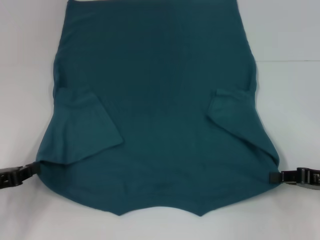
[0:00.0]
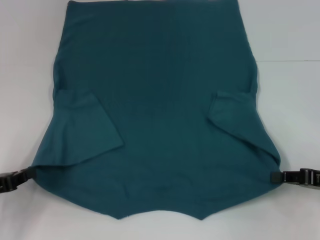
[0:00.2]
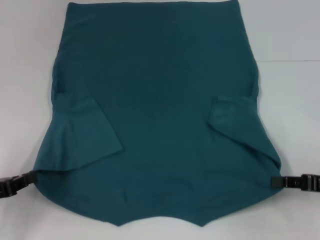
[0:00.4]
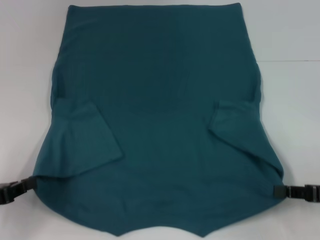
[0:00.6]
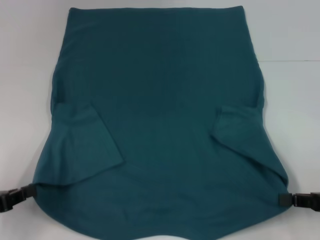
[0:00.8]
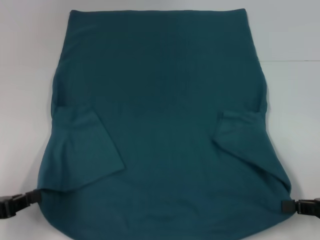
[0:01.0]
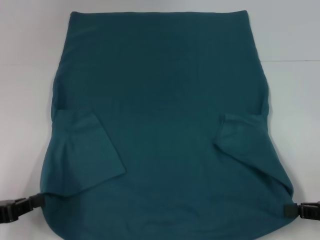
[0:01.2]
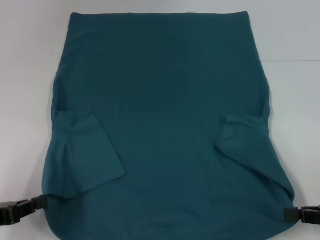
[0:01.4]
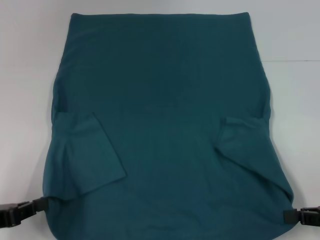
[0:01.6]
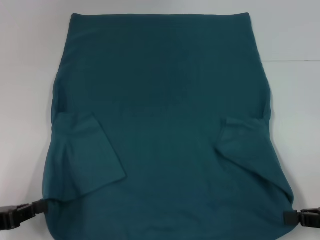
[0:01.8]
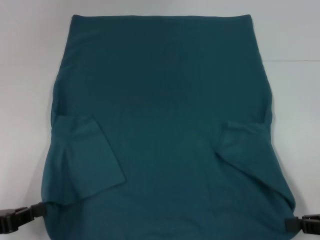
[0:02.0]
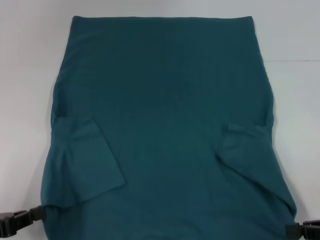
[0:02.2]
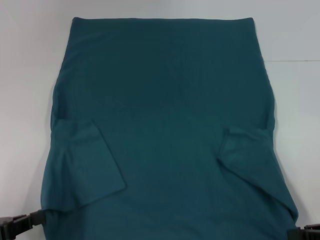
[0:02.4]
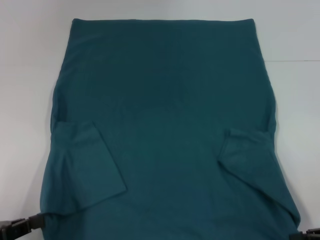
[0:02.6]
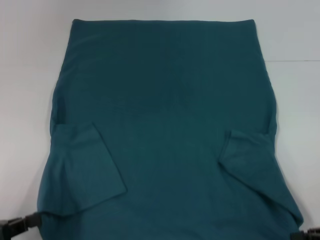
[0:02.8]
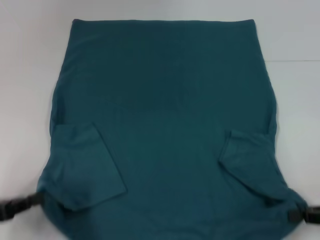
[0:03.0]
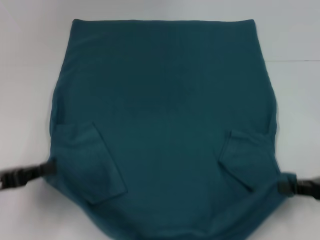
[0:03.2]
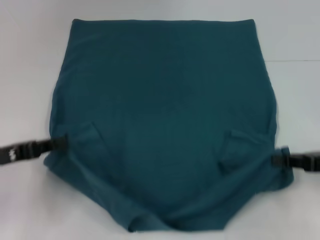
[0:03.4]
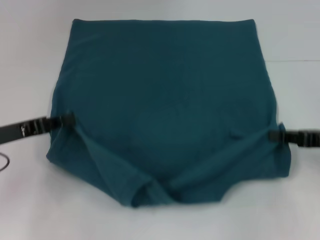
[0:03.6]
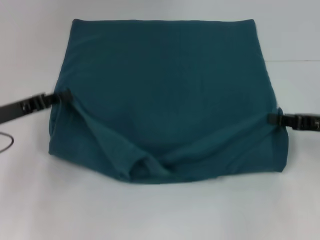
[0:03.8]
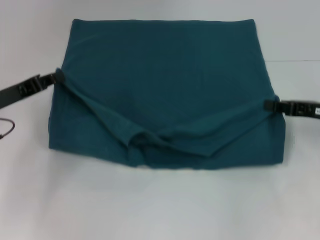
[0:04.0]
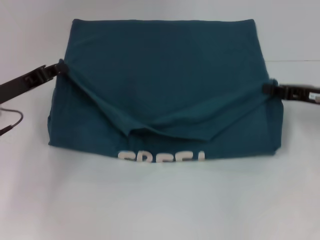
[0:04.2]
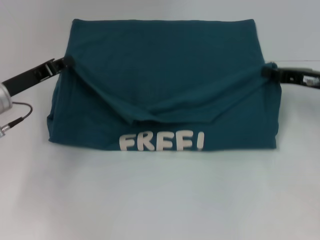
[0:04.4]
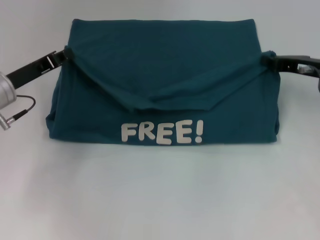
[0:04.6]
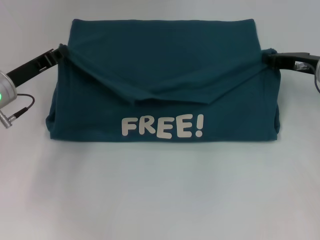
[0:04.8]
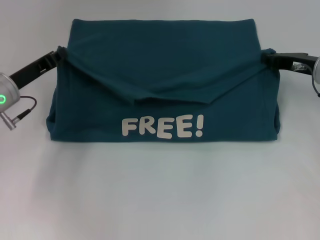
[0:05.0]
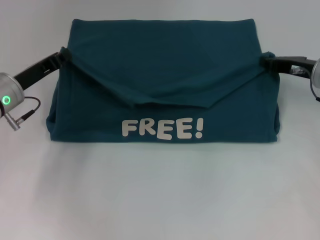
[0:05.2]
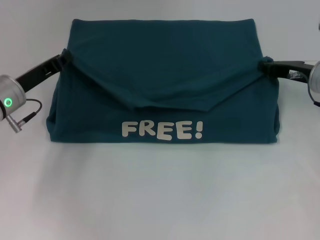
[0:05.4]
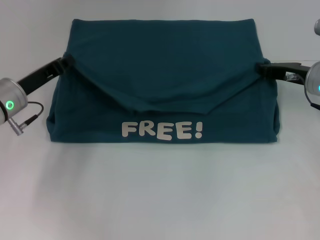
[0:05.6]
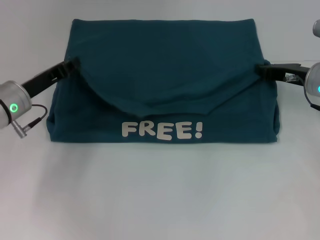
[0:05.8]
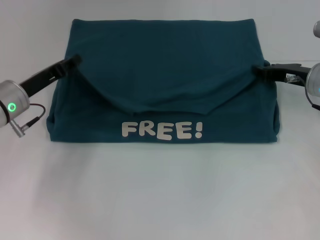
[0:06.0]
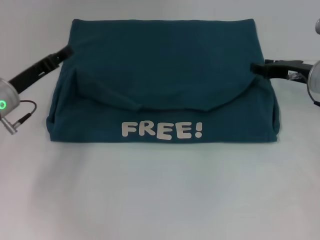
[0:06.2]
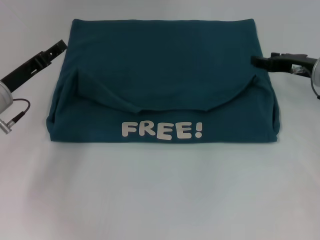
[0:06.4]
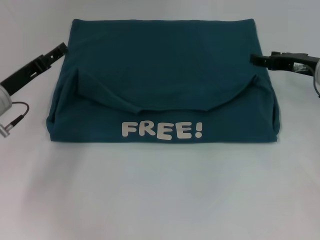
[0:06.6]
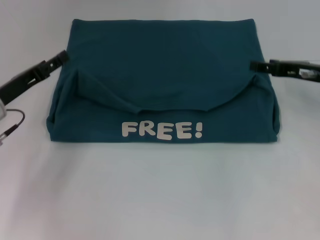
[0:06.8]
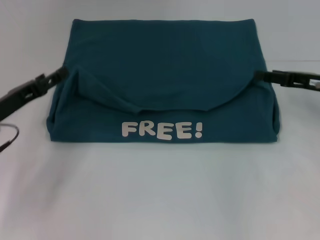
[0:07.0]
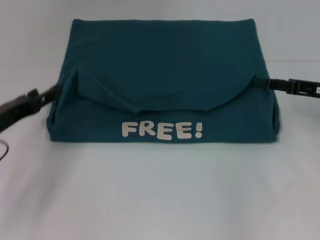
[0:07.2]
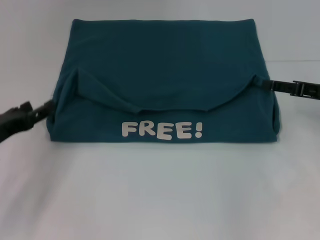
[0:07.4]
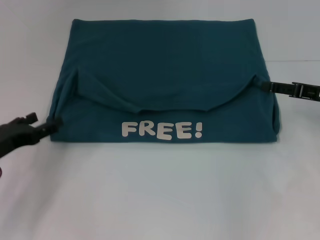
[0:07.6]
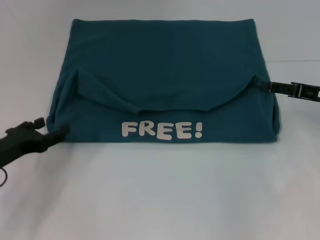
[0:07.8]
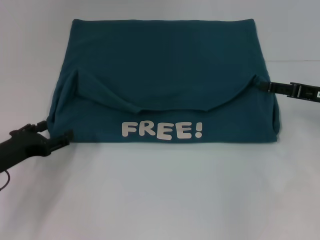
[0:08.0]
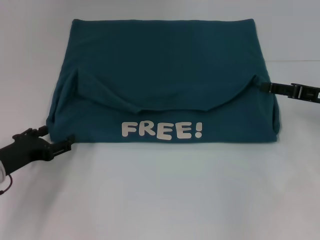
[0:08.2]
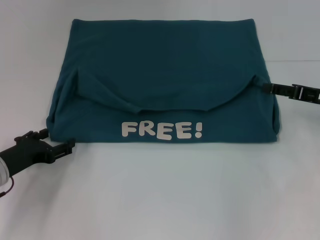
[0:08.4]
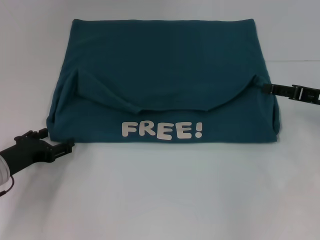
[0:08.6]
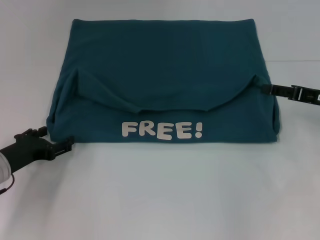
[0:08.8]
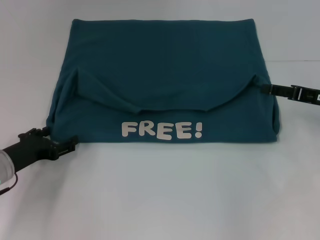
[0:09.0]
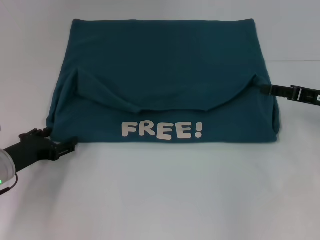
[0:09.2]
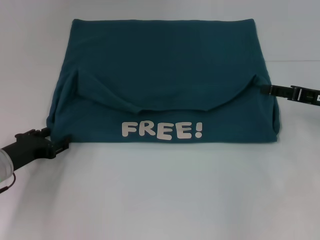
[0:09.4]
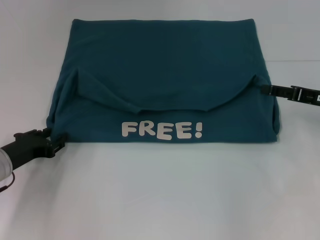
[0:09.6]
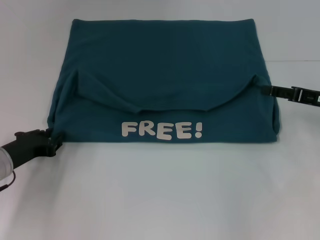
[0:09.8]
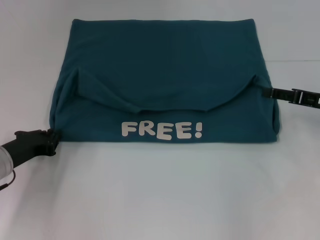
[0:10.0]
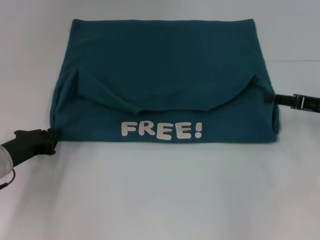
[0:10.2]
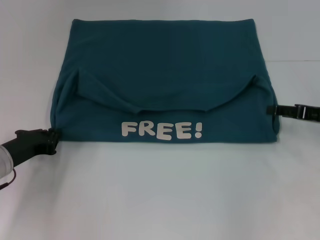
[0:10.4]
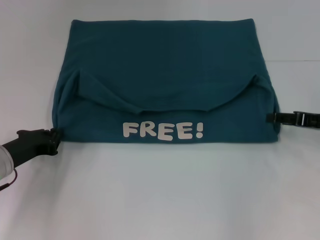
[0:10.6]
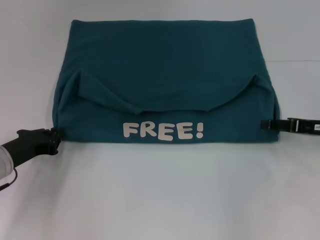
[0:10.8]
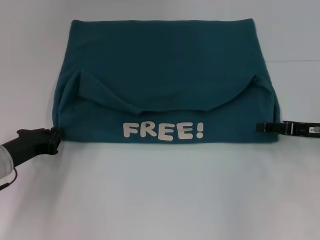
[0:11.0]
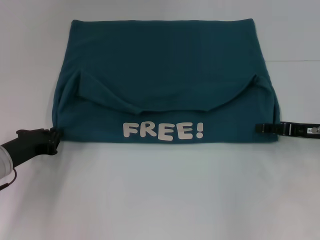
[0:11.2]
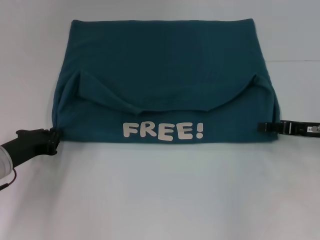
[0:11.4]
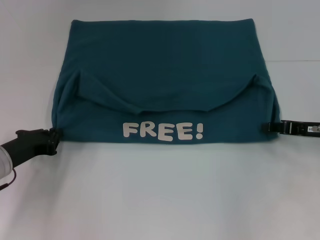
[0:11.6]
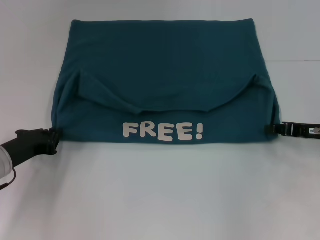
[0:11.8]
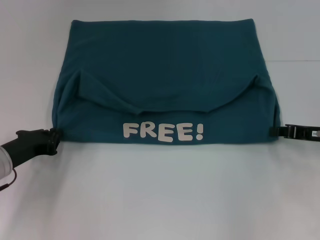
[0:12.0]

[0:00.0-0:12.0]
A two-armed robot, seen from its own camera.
Step, 0:00.0 to 0:06.2: Fold the clothes to the left.
Step, 0:00.0 to 0:06.2: Fold the clothes to the right.
0:00.0 to 0:01.6: The right gripper moves roughly 5 cm; the left gripper is displaced backward by some 5 cm.
0:01.6 to 0:03.0: The grippers make only small movements.
0:03.0 to 0:04.4: Both grippers travel together forward, roughly 15 cm.
0:04.4 to 0:06.0: The grippers move only a little.
0:06.0 to 0:07.6: The left gripper goes roughly 10 cm backward and to the left, and opens up, while the right gripper heads backward and to the right, covering roughly 5 cm, and opens up.
0:07.6 to 0:09.0: The grippers stay close to where they were, moving slightly.
0:09.0 to 0:10.4: The left gripper closes.
0:10.4 to 0:12.0: The right gripper closes up.

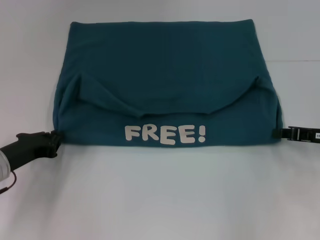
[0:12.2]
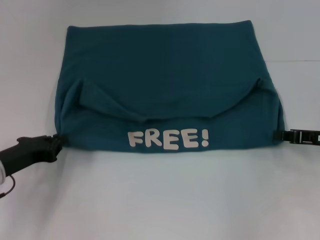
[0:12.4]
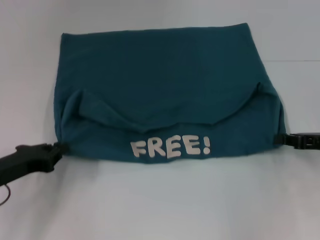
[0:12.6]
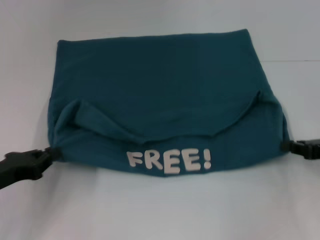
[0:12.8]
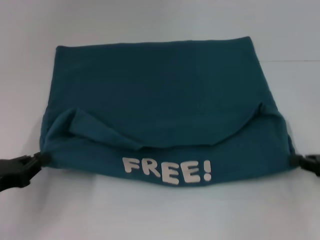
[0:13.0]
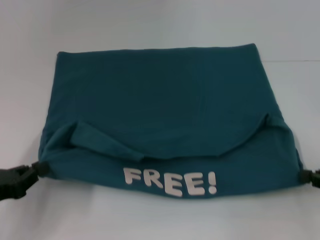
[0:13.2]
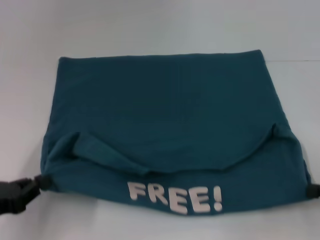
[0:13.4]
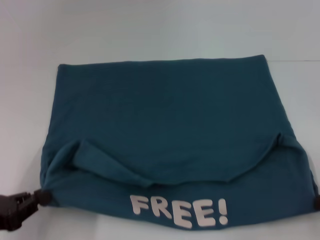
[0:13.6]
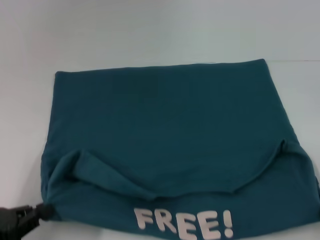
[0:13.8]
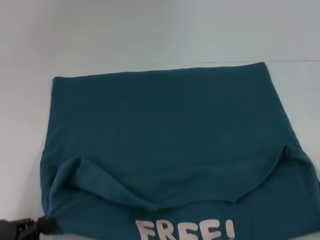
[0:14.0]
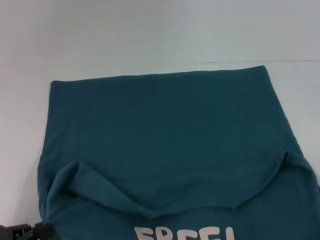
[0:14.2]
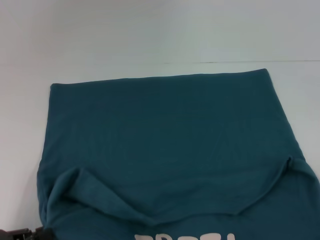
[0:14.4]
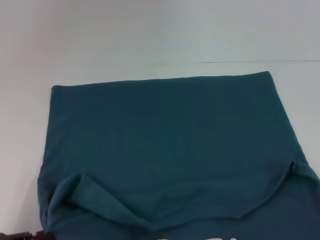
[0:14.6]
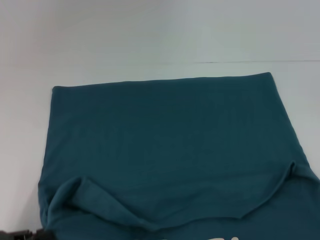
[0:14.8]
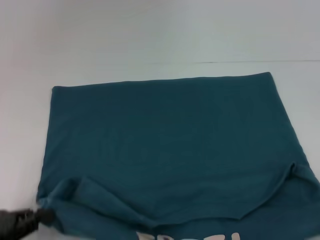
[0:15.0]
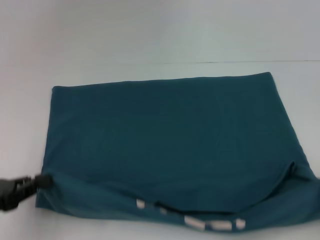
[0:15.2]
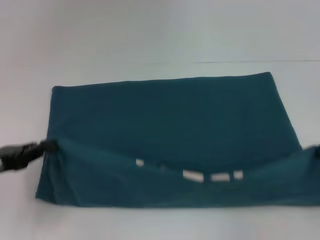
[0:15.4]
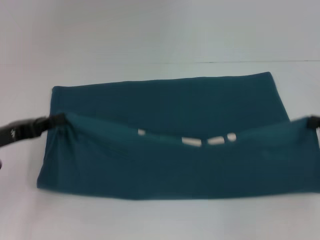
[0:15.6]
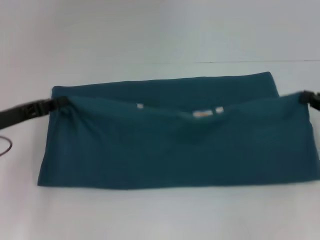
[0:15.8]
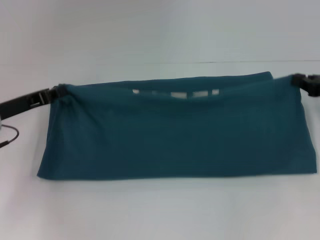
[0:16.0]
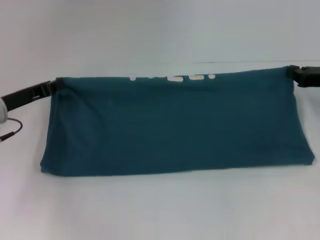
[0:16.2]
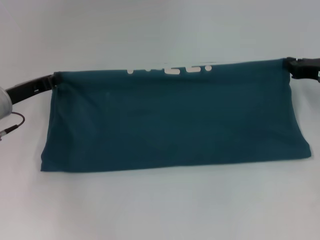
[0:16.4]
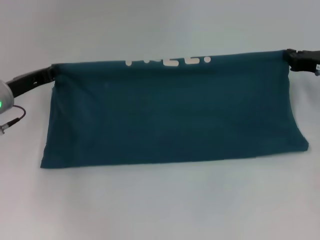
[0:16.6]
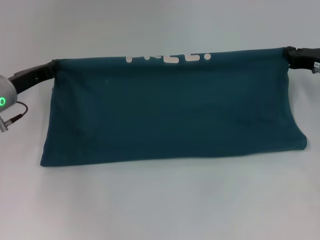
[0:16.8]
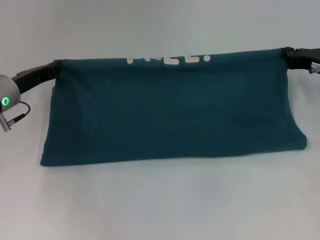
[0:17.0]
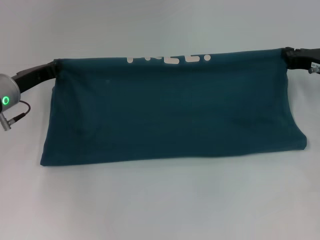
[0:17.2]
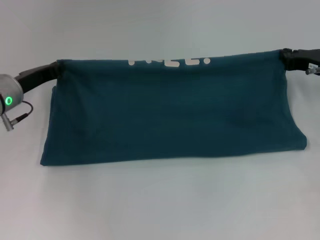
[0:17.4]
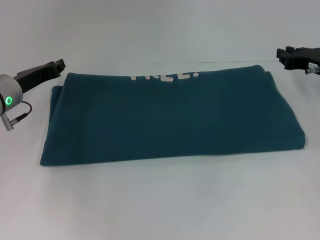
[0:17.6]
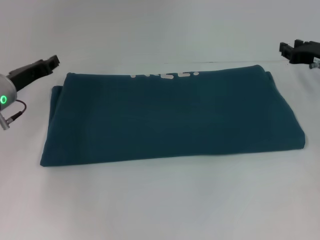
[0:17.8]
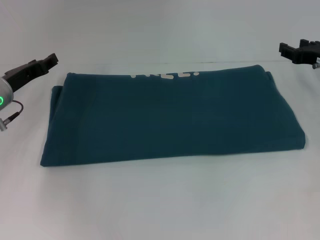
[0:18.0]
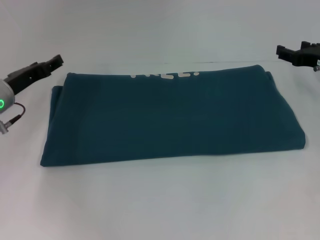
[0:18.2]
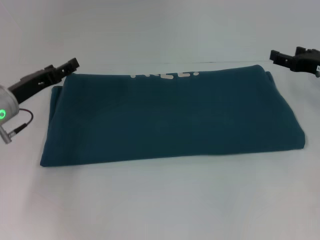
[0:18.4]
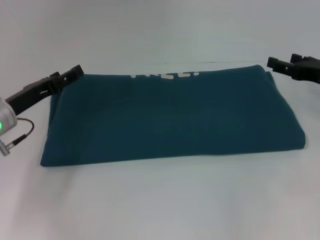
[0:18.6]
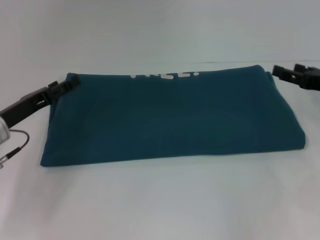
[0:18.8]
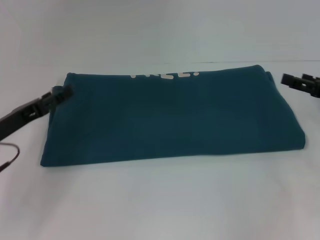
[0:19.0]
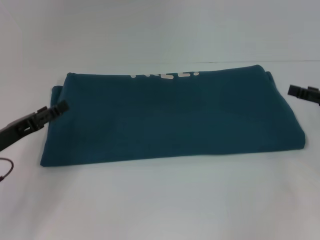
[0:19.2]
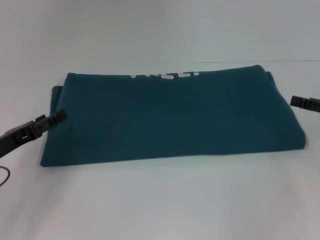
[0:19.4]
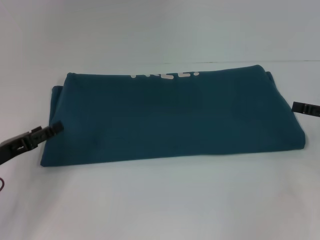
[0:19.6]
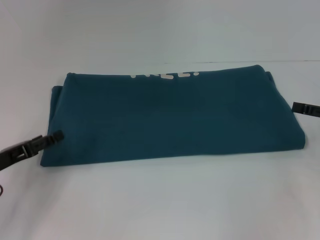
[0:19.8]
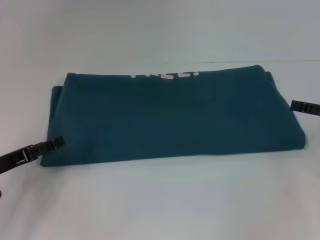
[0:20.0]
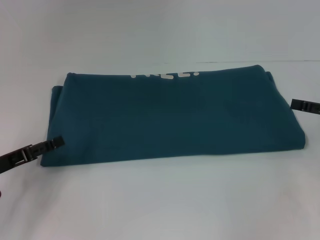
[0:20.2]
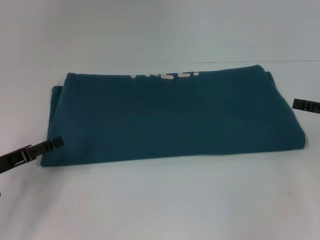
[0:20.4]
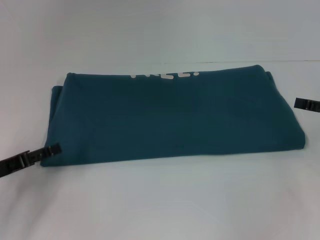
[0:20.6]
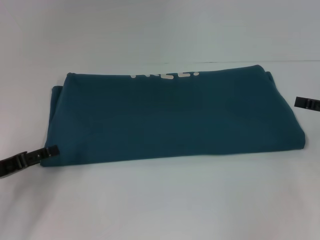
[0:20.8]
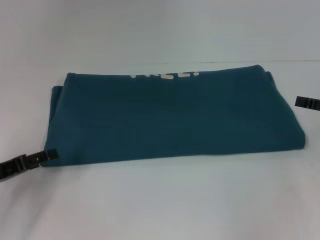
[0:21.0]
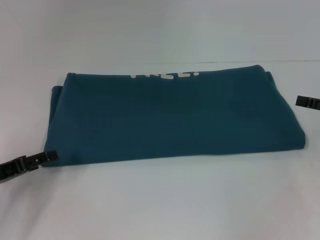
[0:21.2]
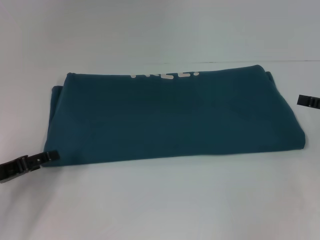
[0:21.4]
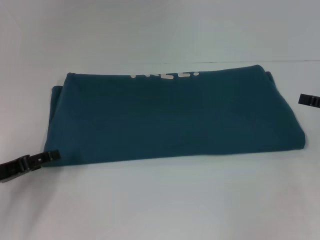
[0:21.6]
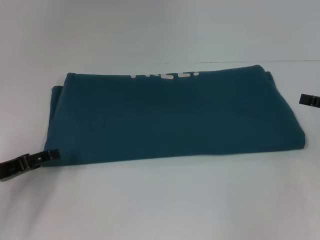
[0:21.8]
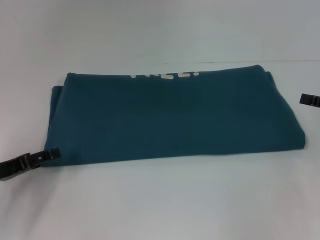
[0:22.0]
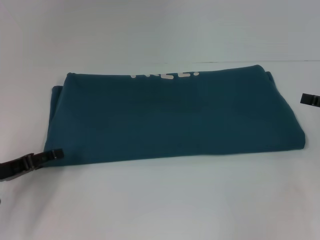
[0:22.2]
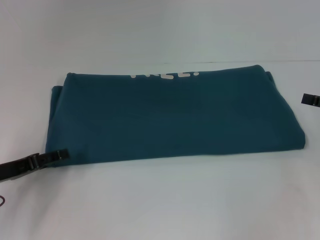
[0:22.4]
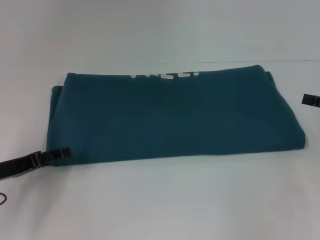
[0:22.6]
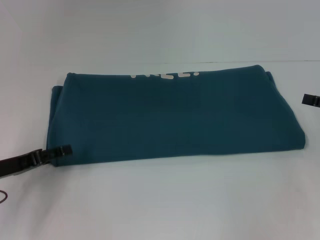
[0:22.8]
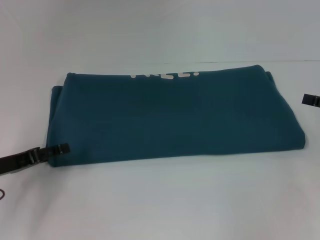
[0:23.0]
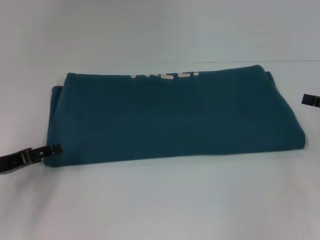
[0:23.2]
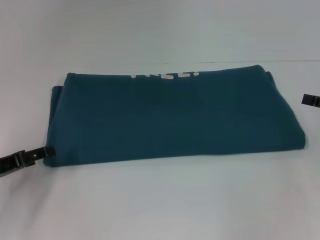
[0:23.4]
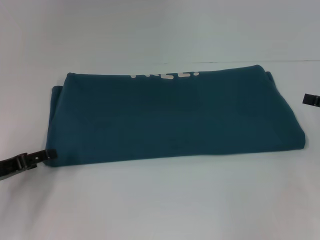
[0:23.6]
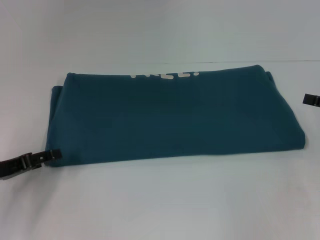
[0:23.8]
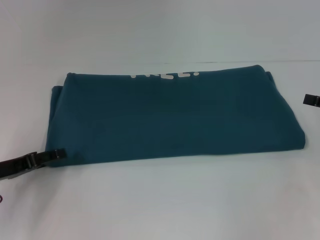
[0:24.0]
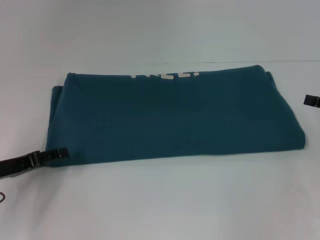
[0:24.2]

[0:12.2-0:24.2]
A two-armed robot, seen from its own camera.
Step, 0:12.2 to 0:14.4: Pull the clothes with your left hand.
Step, 0:12.2 to 0:14.4: Pull the clothes with your right hand.
Step, 0:14.6 to 0:17.6: Fold the clothes to the right.
0:12.2 to 0:13.8: The left gripper travels backward by some 15 cm. Meanwhile the right gripper heads backward and to the right, covering some 15 cm.
0:13.8 to 0:15.2: There are only small adjustments of the grippers.
0:15.2 to 0:16.6: The two grippers go approximately 20 cm forward.
0:16.6 to 0:18.2: The left gripper opens; the right gripper opens.
0:18.2 to 0:19.8: The right gripper heads backward and to the right, covering some 10 cm. Meanwhile the left gripper is displaced backward by about 10 cm.
0:19.8 to 0:21.2: The grippers move only a little.
